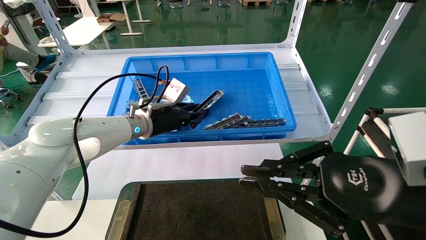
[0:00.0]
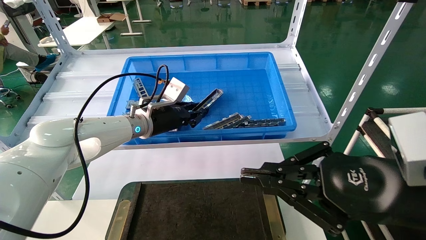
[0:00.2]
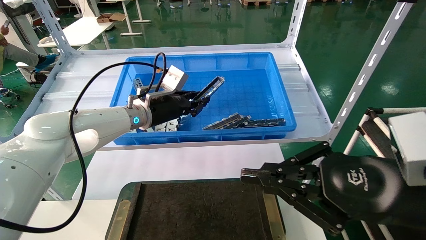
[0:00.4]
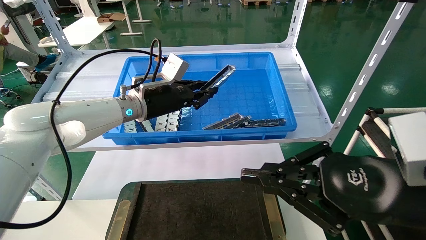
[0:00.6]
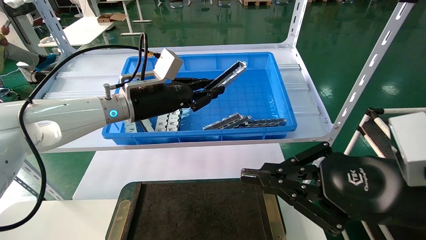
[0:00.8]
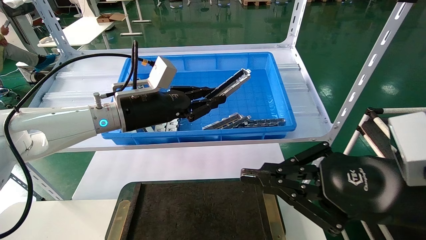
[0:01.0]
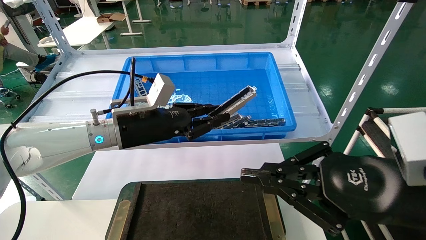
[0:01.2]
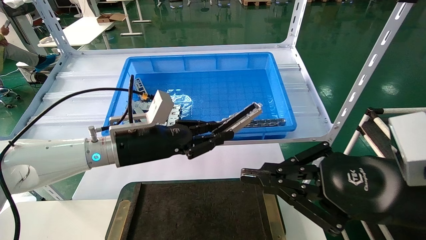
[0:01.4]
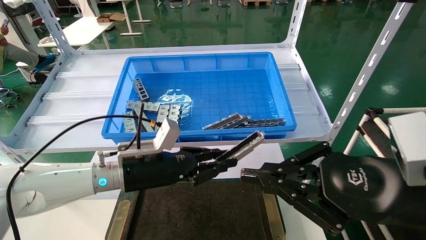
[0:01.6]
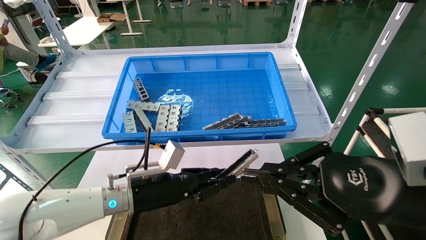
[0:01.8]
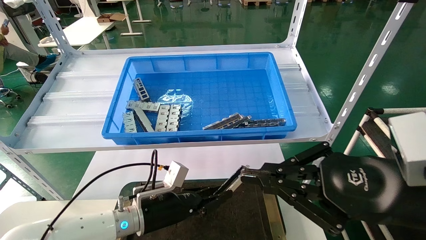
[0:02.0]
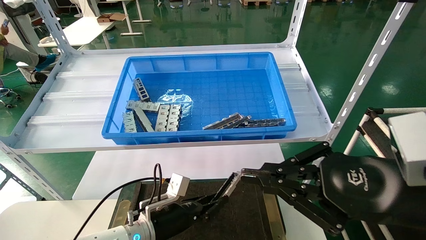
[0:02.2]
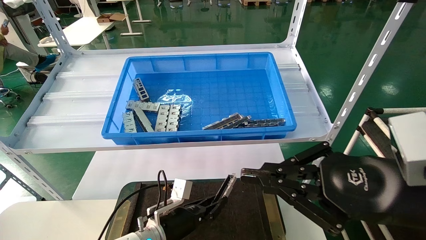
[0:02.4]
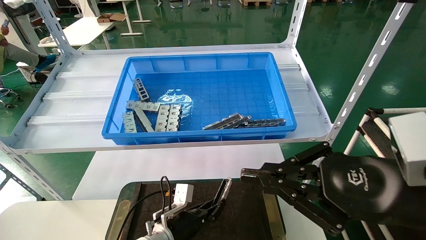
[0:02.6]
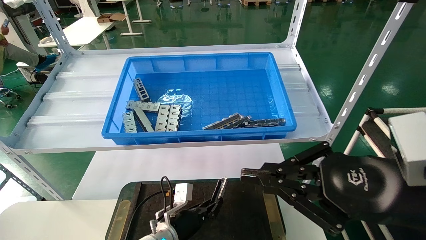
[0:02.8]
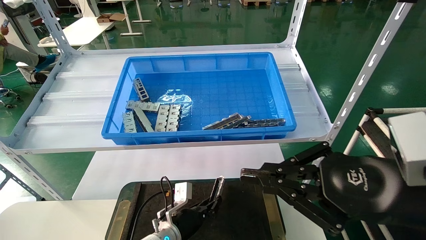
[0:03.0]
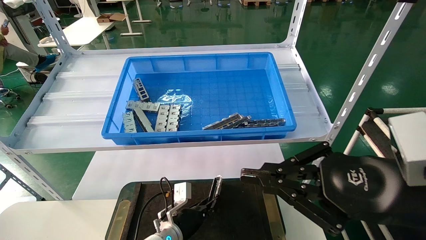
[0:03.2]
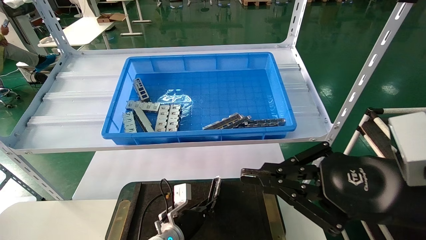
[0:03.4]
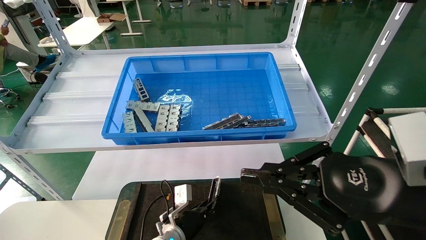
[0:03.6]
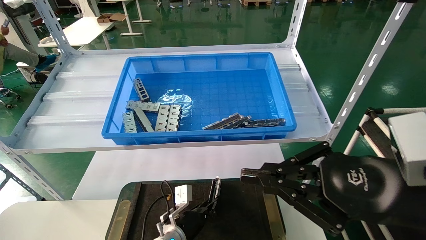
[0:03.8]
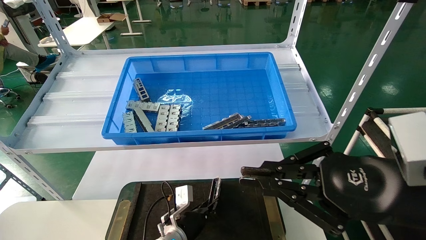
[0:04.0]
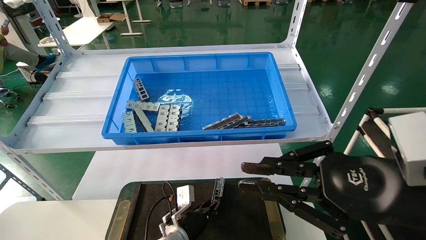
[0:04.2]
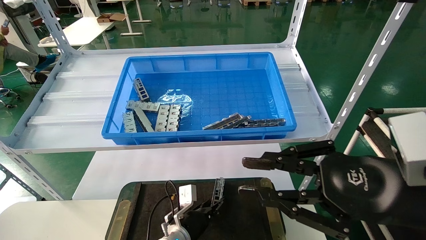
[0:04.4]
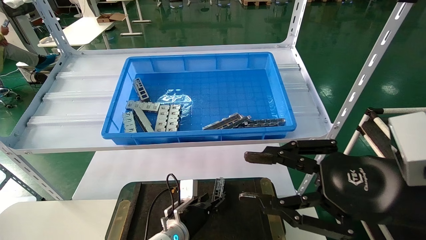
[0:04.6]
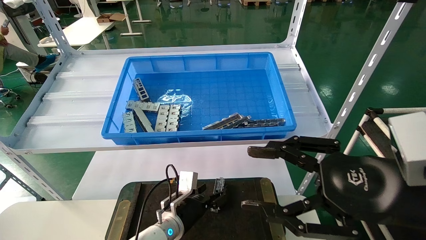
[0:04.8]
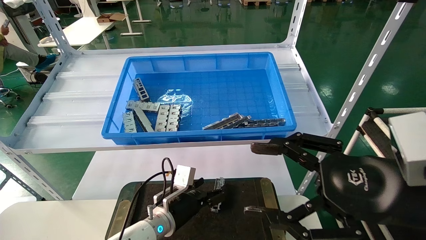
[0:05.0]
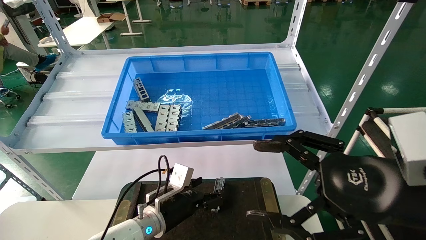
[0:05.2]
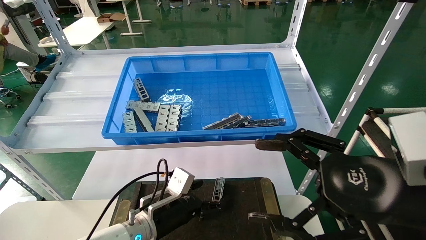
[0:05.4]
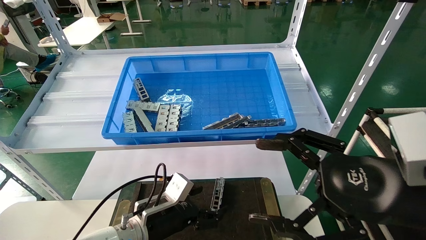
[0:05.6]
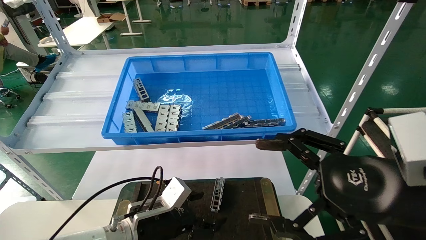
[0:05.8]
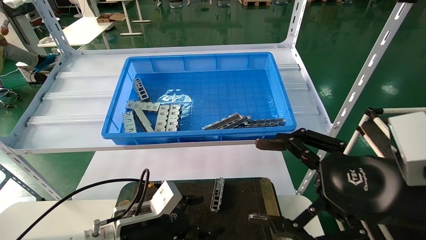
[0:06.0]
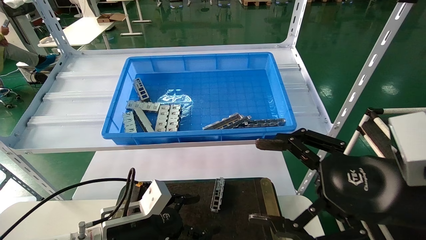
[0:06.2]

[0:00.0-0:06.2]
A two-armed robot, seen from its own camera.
Task of the whole recording: Grasp the part with one hand and place it on the black container.
Step, 0:01.0 to 0:04.2: Place the front USB bracket into the box.
0:00.0 to 0:01.6: The left gripper heads backward and downward, covering approximately 15 cm.
0:01.6 to 0:03.2: The left gripper goes some 20 cm downward.
0:03.2 to 0:04.6: The left gripper opens its fingers.
0:04.6 to 0:06.2: The left gripper travels backward, upward and to the left by some 20 cm, and opens; the right gripper opens.
